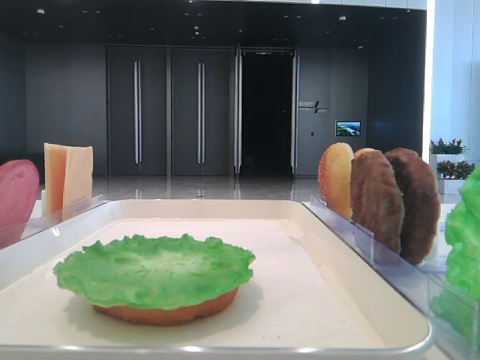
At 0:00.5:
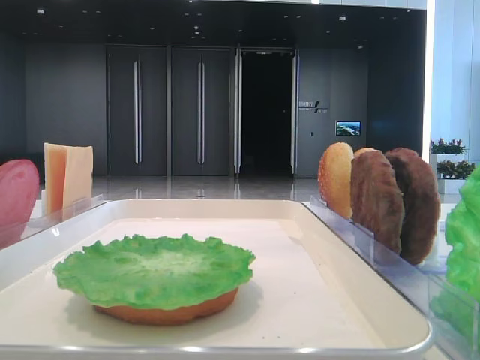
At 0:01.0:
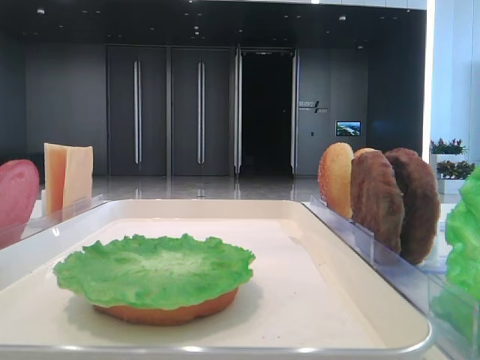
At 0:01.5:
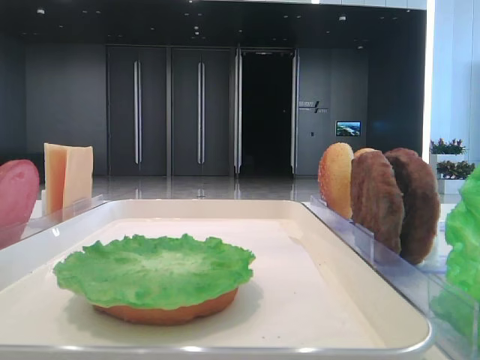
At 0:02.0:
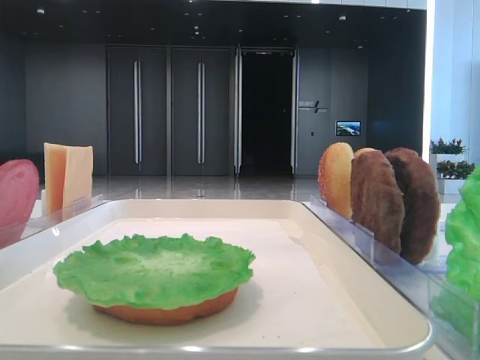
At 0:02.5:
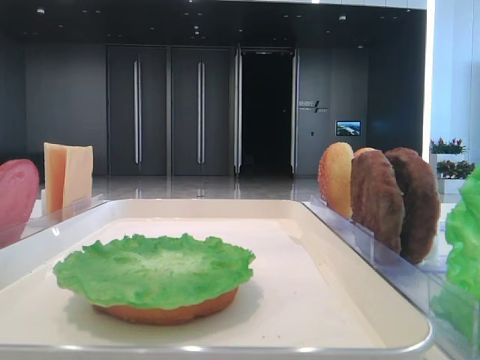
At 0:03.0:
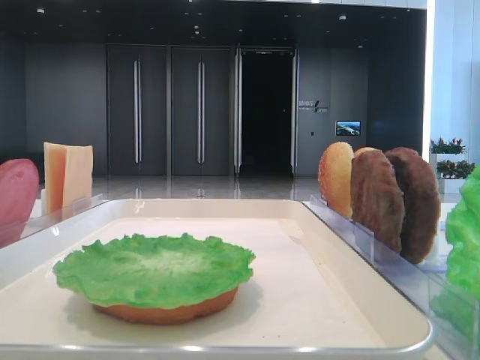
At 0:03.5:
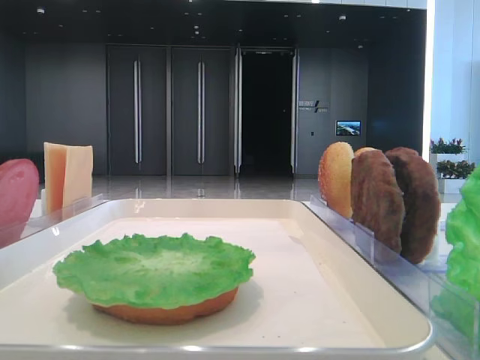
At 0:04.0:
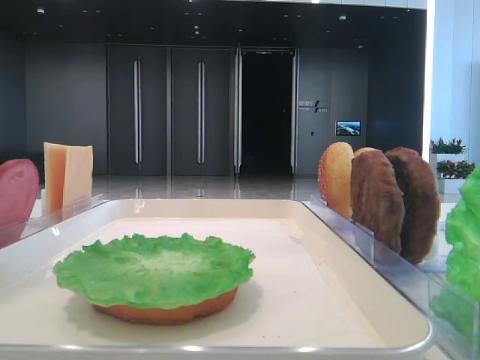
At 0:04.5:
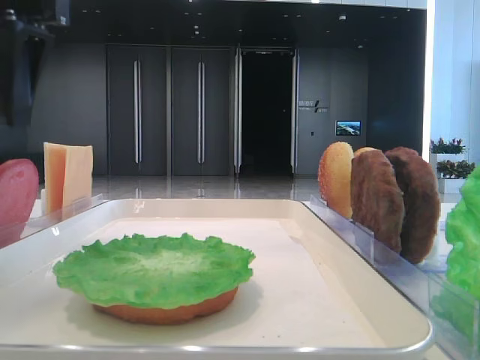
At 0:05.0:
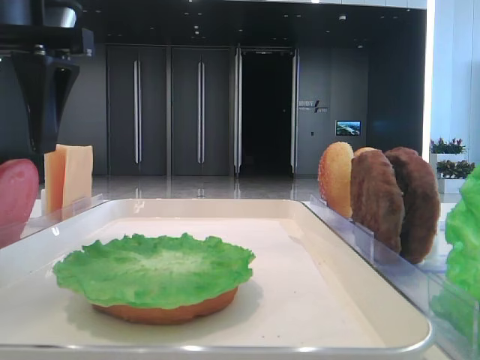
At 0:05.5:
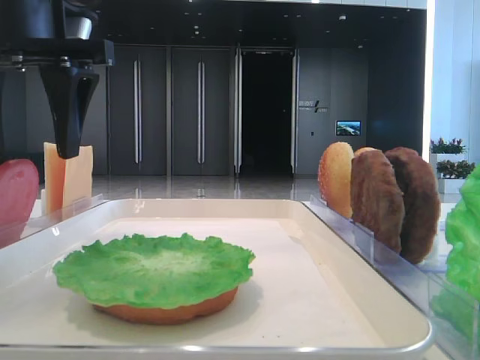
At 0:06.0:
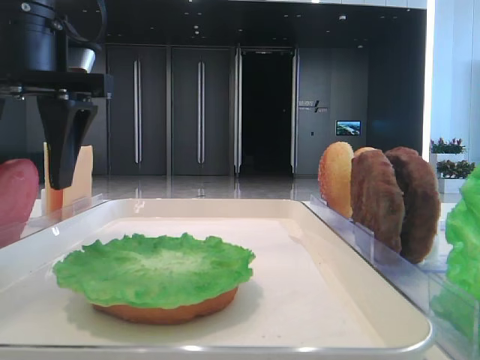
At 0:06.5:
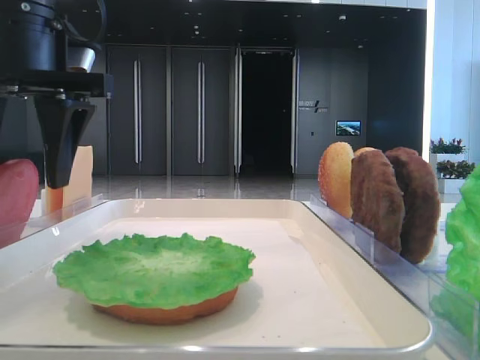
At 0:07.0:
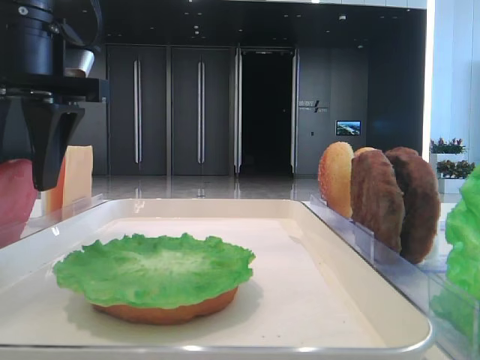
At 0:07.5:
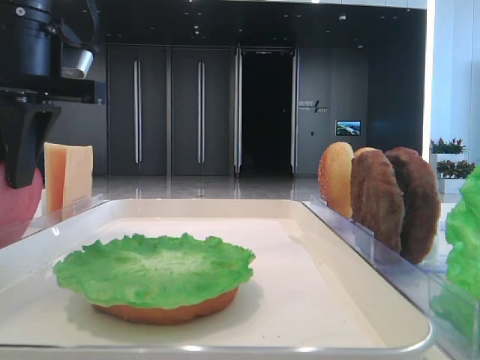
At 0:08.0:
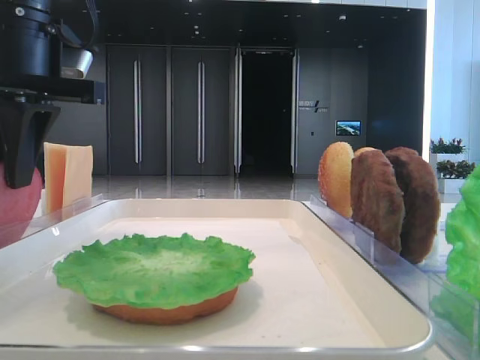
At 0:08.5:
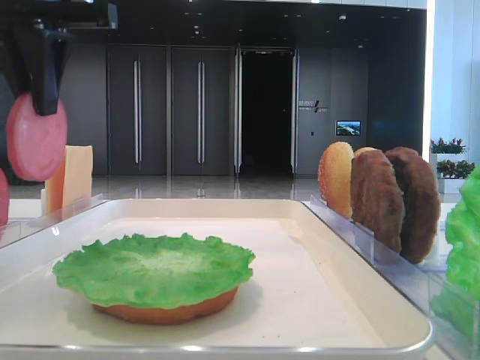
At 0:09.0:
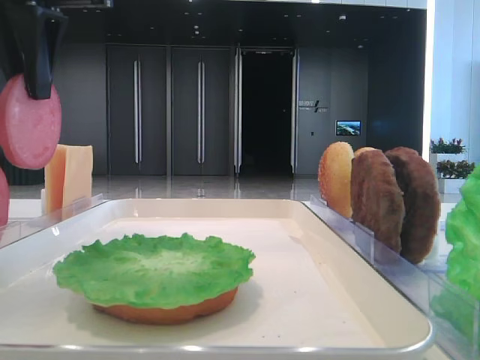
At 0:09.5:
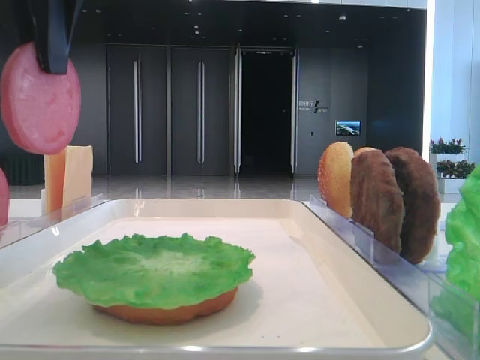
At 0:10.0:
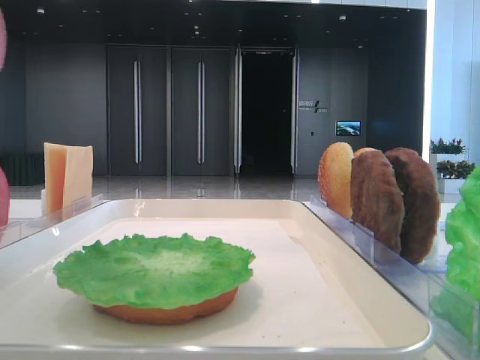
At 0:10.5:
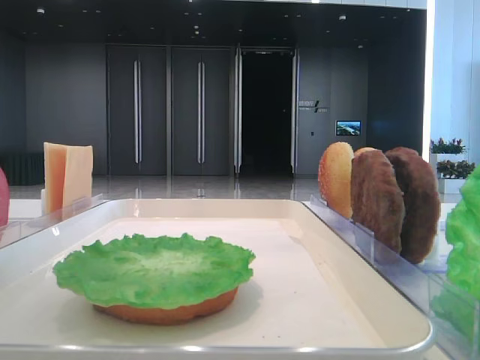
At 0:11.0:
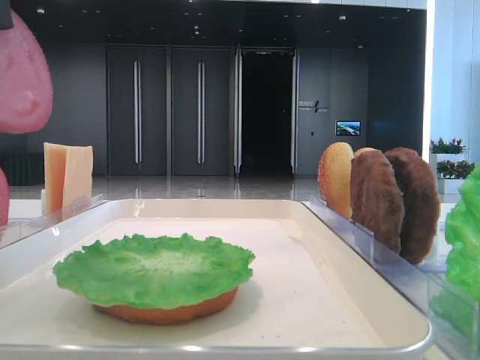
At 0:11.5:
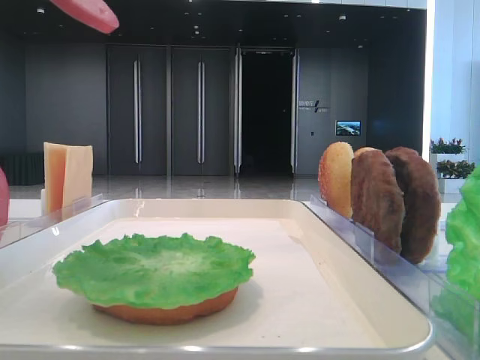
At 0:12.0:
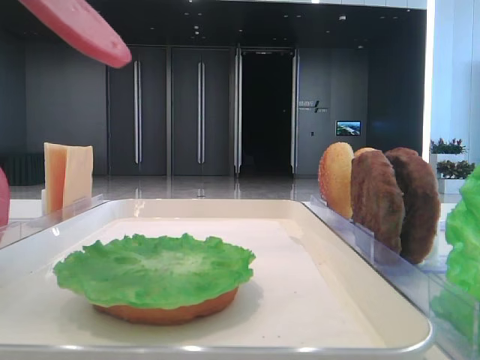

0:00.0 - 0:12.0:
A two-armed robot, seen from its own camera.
Step, 0:00.0 - 0:08.0: Pick up the tomato slice with the left hand.
0:04.0 - 0:06.0: The left gripper shifts some 10 cm to the right and downward.
0:06.0 - 0:08.0: The left gripper closes up.
0:08.0 - 0:10.0: The left gripper heads upward and backward, covering some 15 cm.
0:10.0 - 0:12.0: The left gripper changes place by some 5 cm.

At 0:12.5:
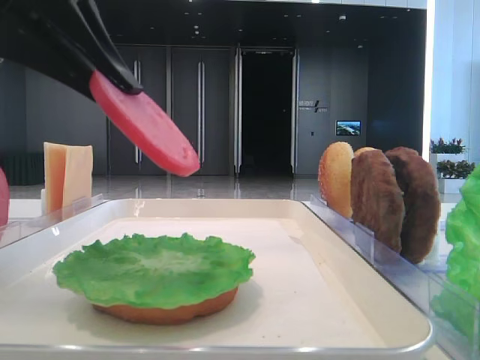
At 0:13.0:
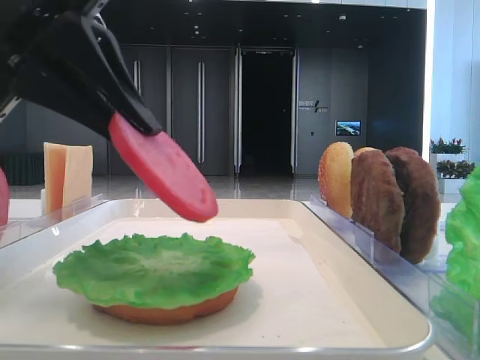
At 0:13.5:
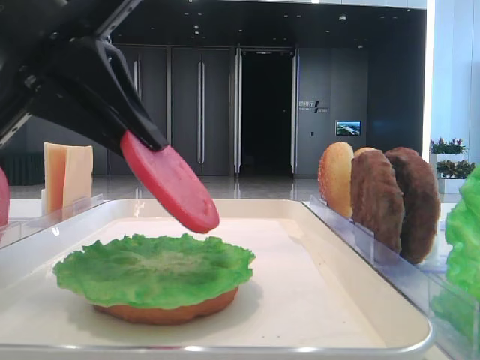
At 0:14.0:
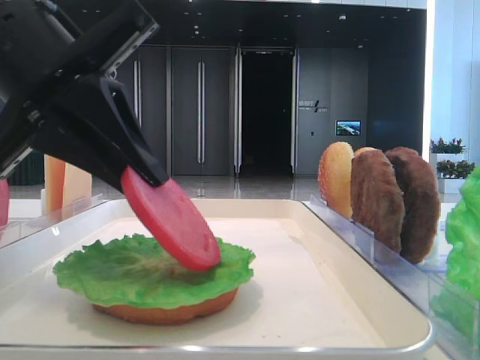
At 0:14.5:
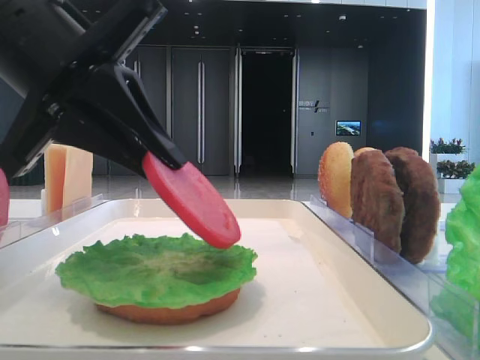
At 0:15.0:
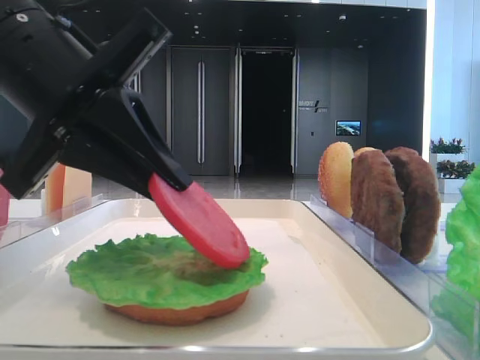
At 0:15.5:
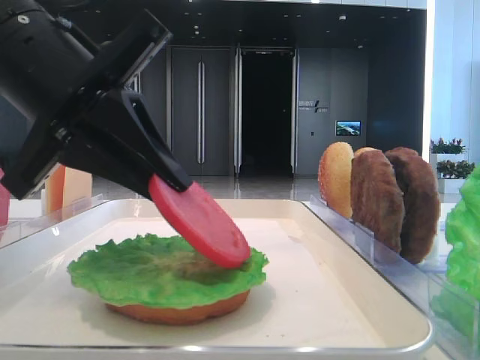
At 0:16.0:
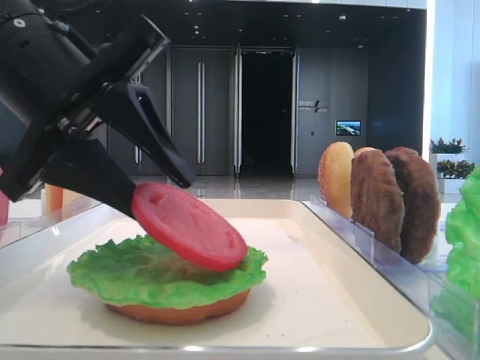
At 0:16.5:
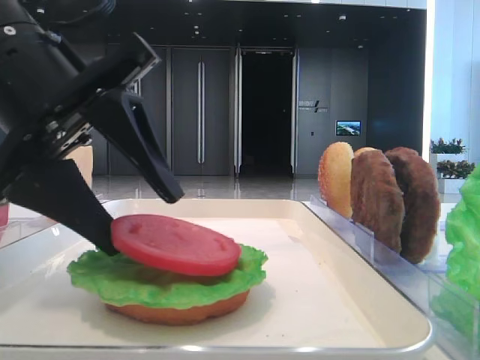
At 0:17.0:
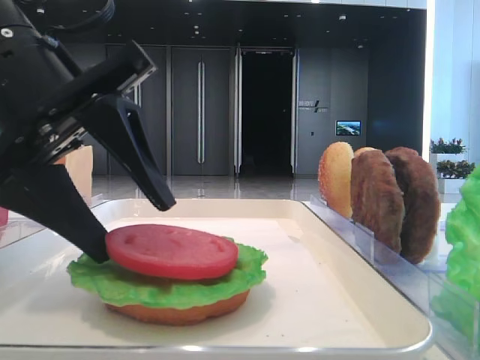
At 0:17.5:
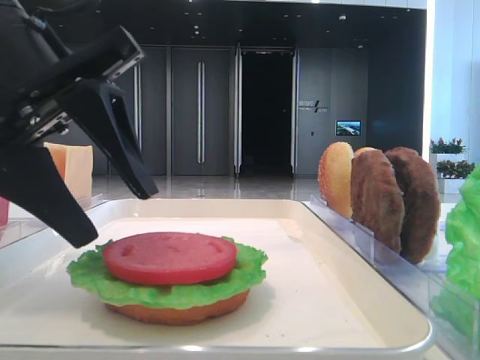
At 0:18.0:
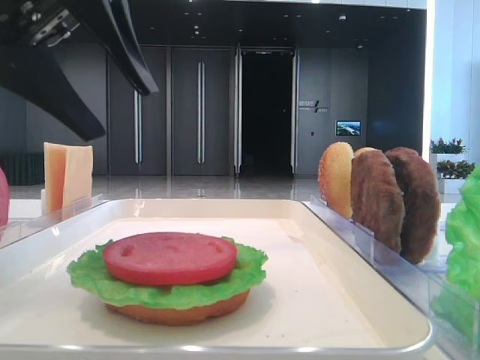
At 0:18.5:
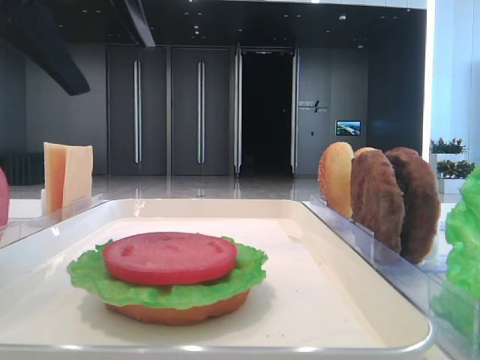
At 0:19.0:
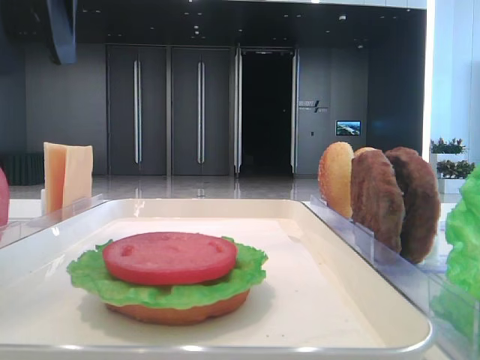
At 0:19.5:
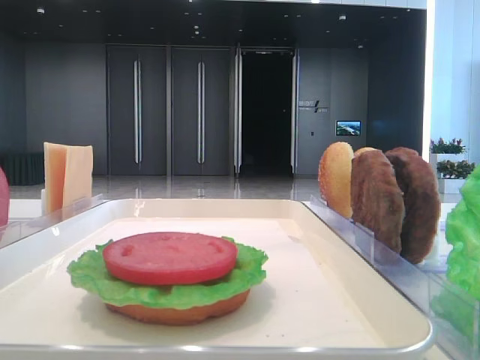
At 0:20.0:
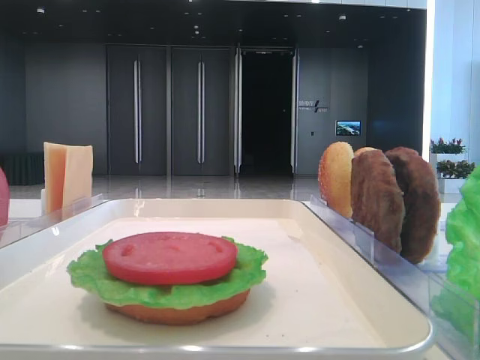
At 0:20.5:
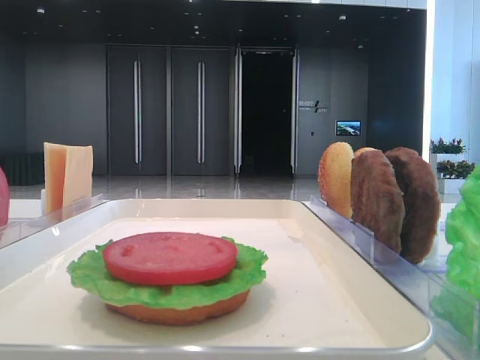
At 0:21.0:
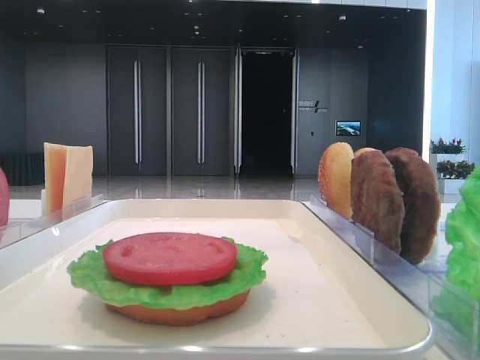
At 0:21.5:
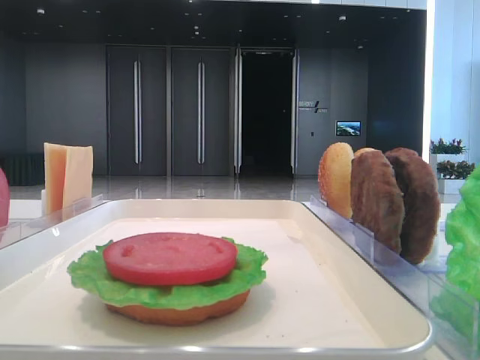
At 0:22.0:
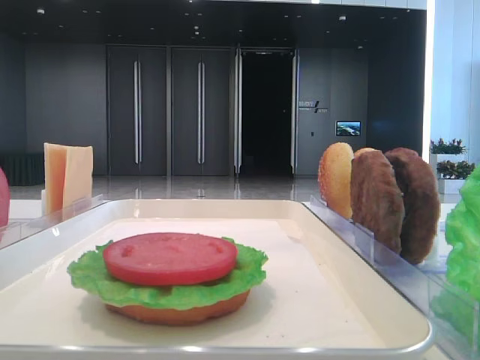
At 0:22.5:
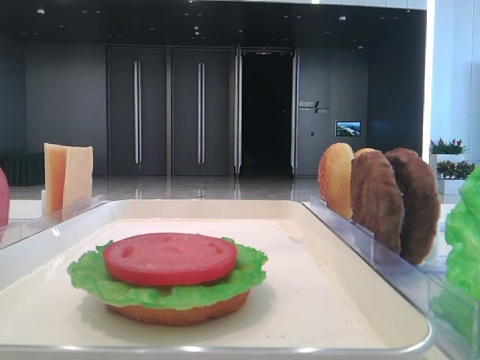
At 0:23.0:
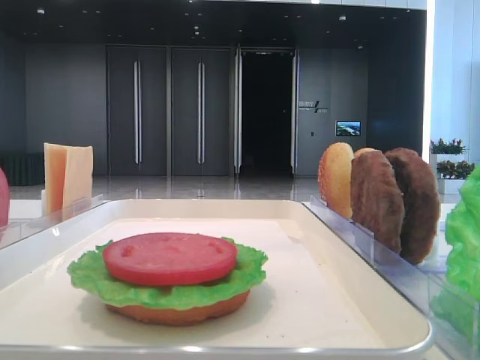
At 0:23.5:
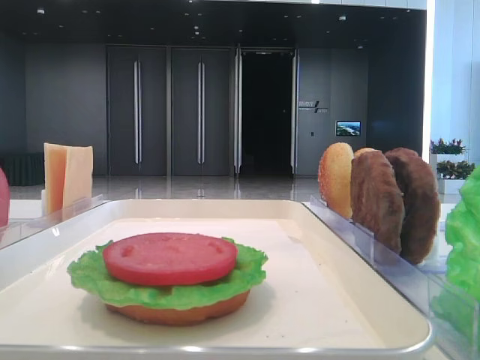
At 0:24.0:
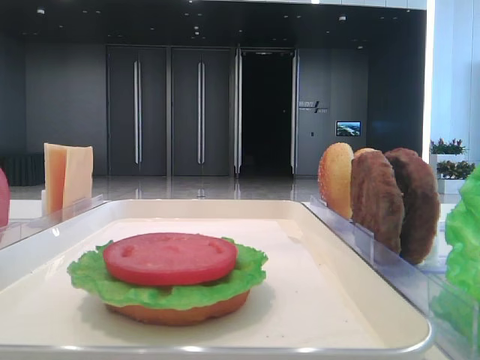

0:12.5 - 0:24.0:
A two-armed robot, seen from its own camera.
Step, 0:12.5 - 0:17.0: Place the tomato slice on the lettuce leaf with the left hand.
0:12.5 - 0:14.5: The left gripper moves some 5 cm.
0:14.5 - 0:16.5: The left gripper opens up.
0:16.5 - 0:18.5: The left gripper shifts some 10 cm upward.
0:18.5 - 0:20.0: The left gripper is displaced to the left by approximately 20 cm.

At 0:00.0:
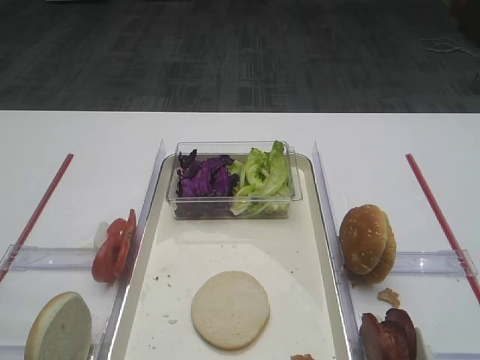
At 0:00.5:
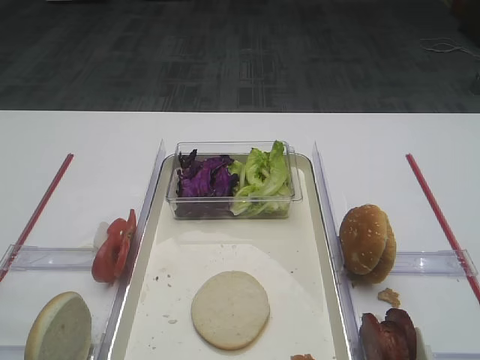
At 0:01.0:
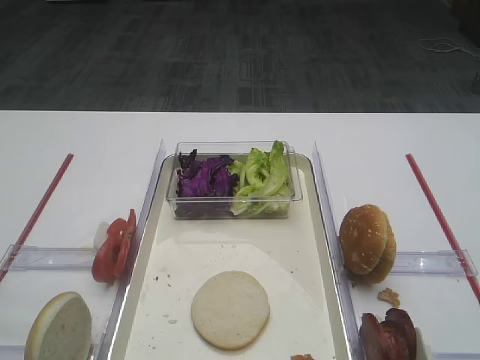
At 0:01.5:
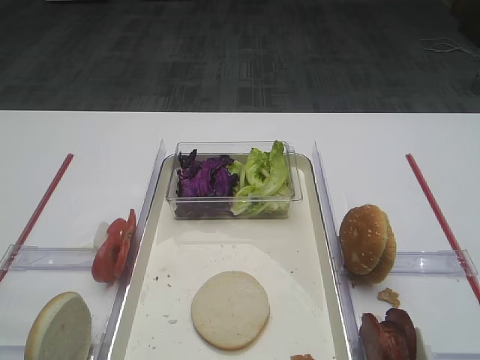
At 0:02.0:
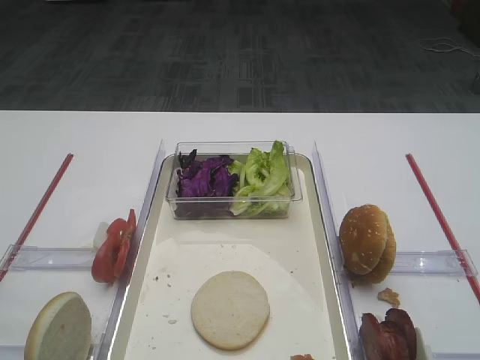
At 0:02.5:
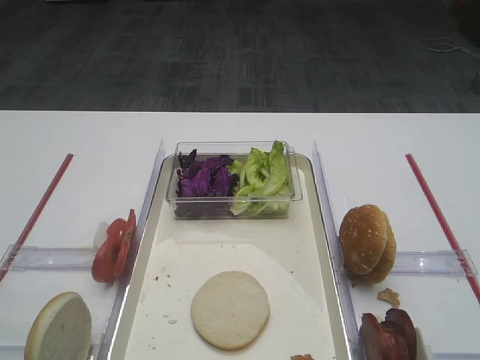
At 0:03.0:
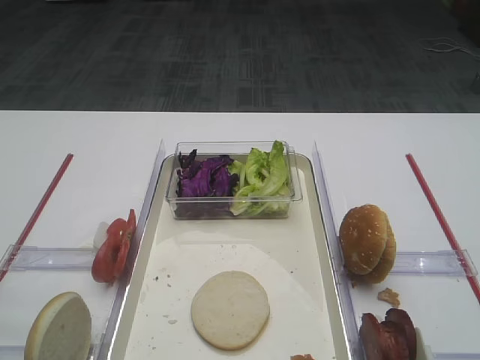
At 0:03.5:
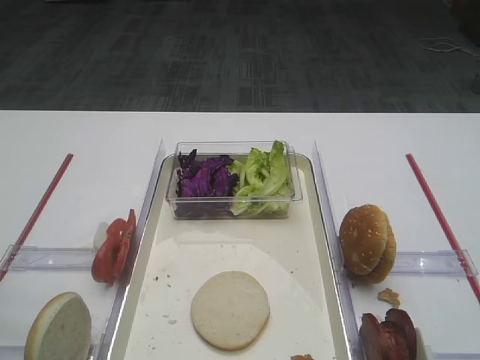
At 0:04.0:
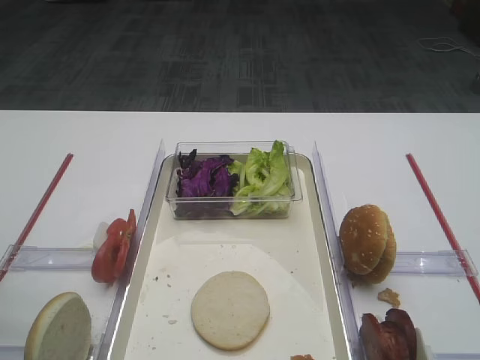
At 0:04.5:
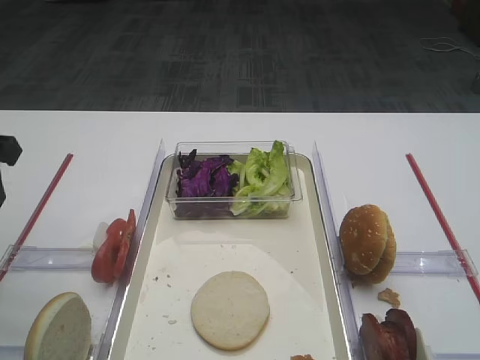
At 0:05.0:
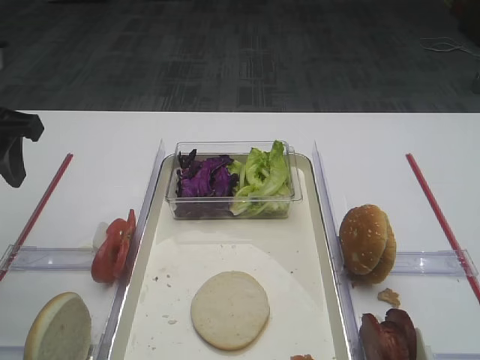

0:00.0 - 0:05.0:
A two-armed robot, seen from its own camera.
0:02.5 - 0:05.0: The left gripper shifts some 30 cm forward.
